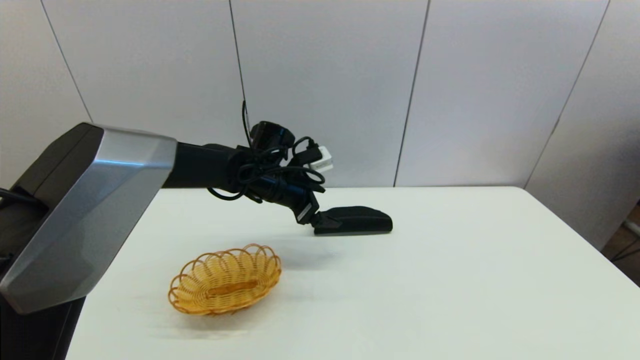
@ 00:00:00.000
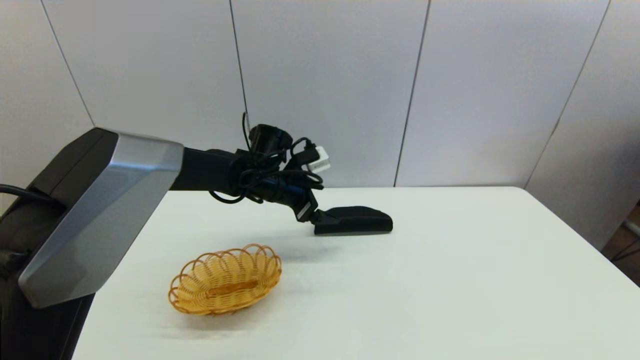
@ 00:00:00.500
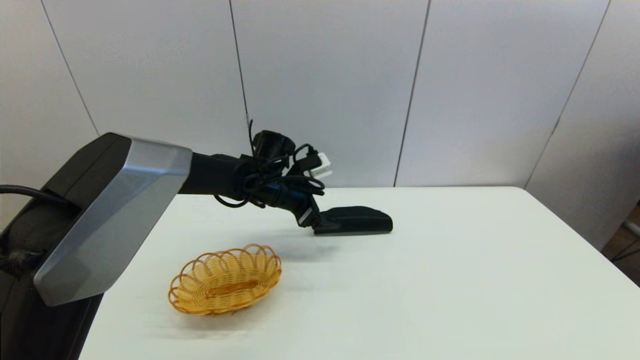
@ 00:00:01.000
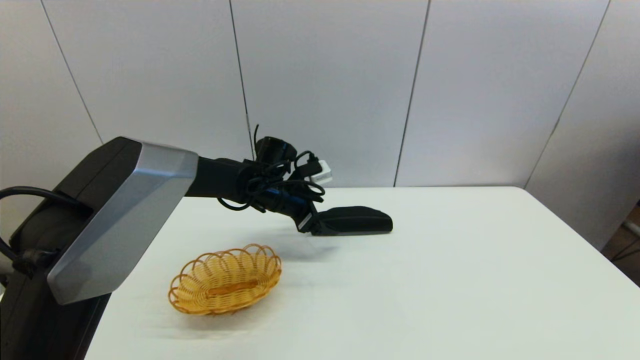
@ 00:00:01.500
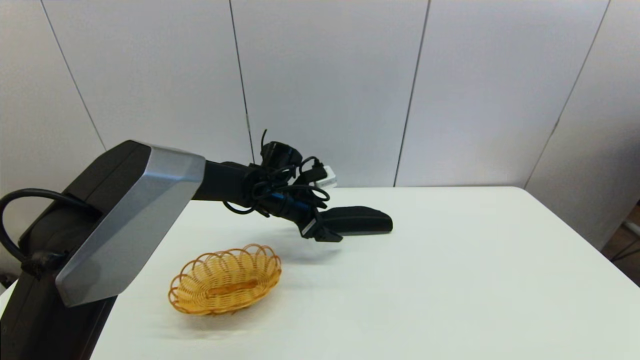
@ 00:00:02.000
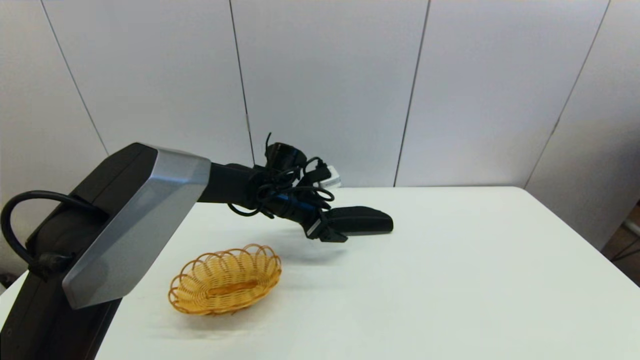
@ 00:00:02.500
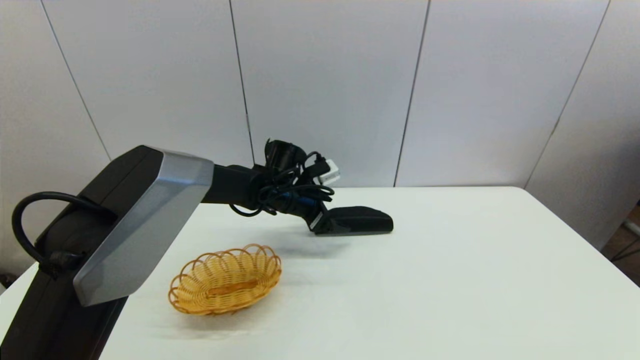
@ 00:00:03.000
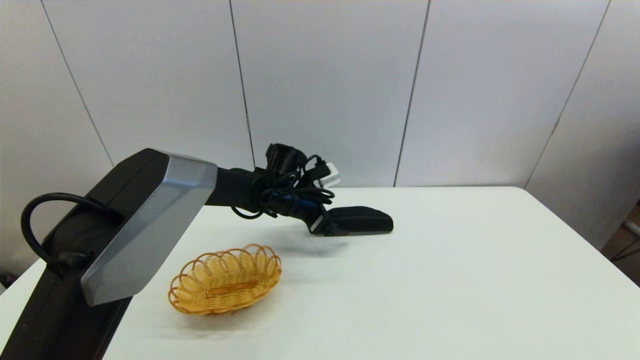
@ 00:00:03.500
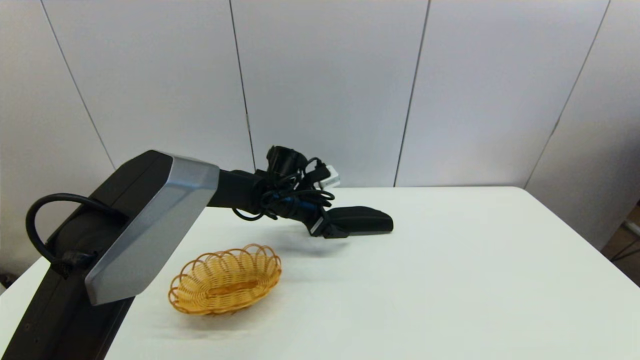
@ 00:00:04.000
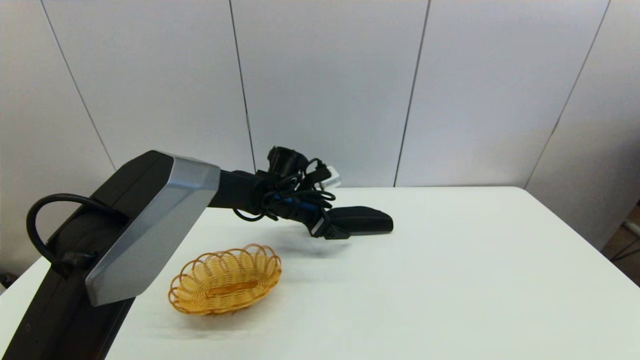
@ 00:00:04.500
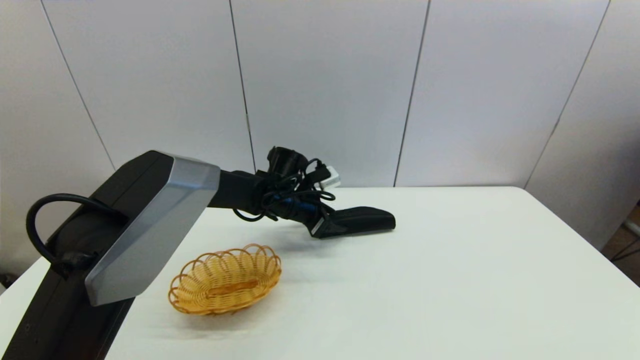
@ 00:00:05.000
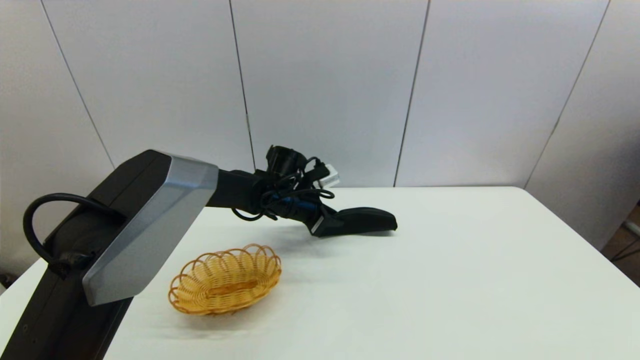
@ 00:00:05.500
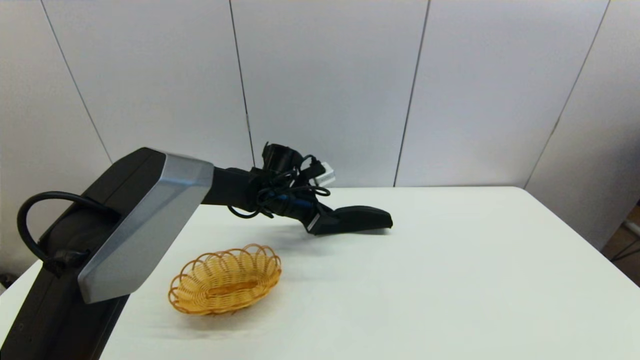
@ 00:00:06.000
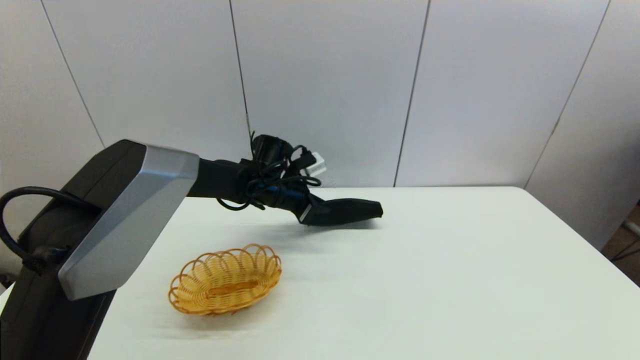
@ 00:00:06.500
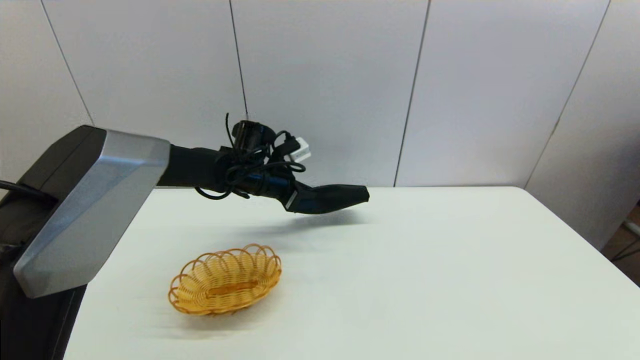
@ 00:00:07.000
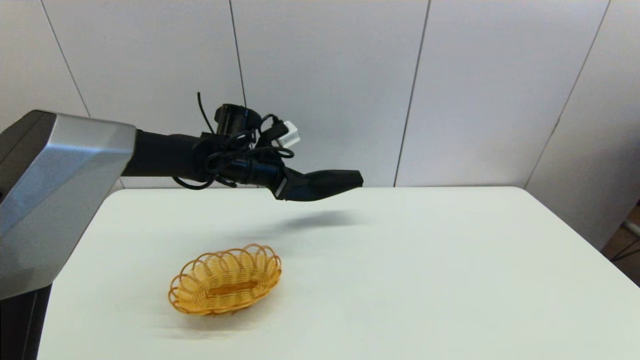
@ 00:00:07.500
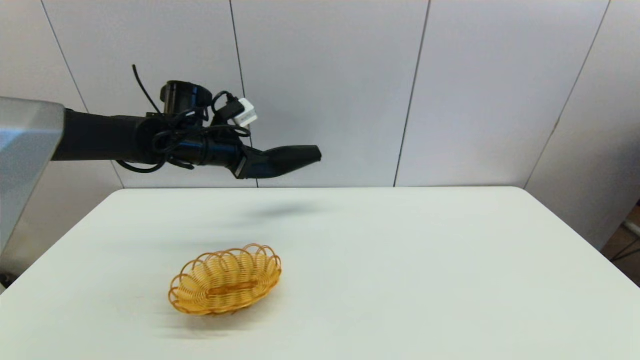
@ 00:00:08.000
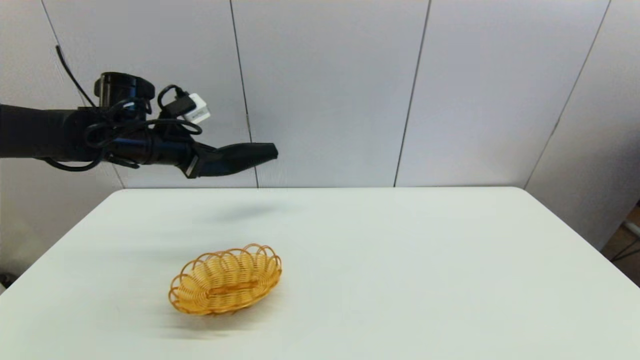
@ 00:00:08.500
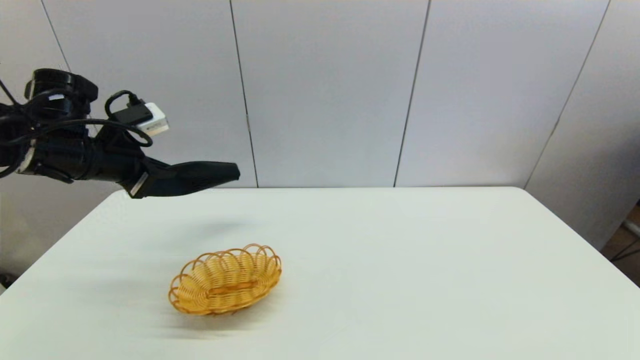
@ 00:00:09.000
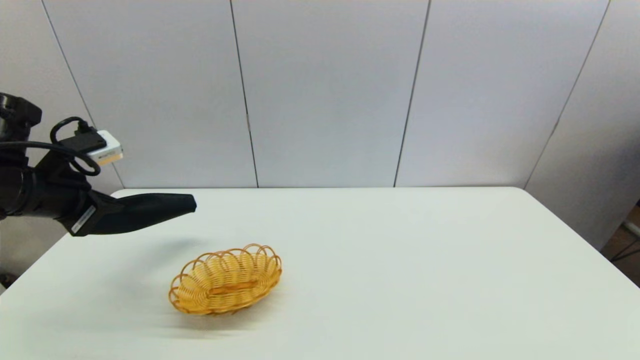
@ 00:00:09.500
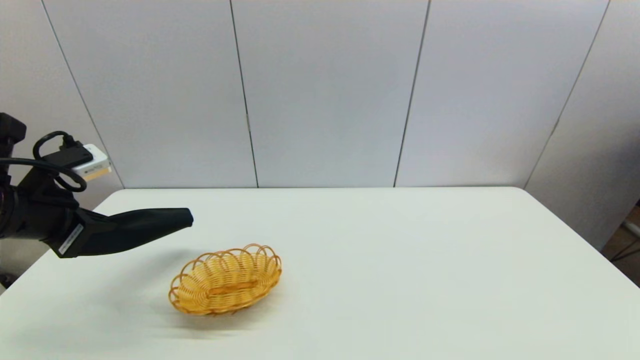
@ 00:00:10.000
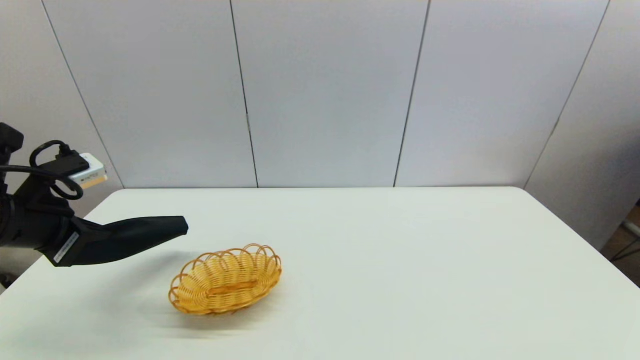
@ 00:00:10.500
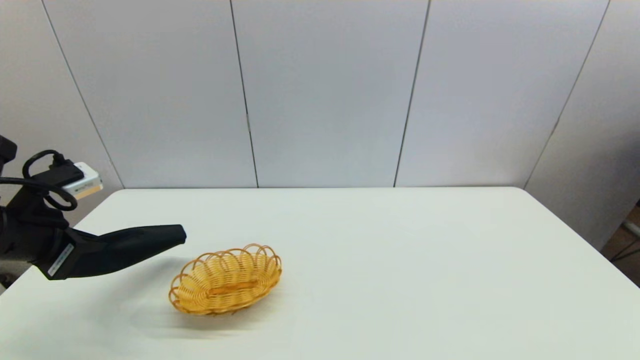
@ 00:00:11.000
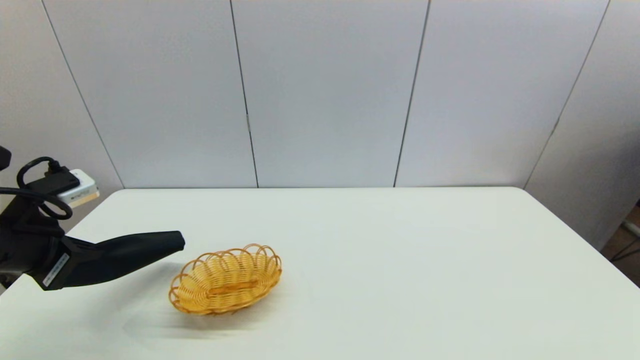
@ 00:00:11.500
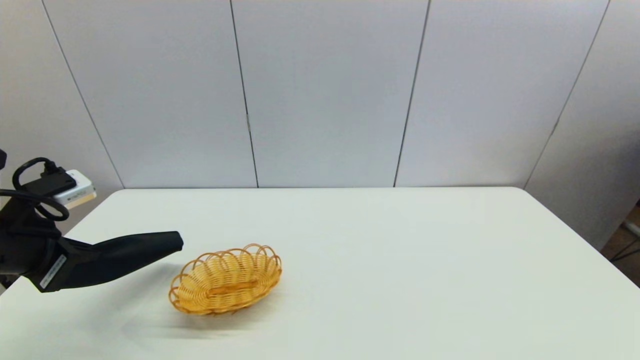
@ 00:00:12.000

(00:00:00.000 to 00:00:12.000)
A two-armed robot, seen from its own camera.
Step, 00:00:00.000 - 00:00:05.000: Grasp the glasses case with left gripper.
00:00:00.000 - 00:00:02.000: The grippers stay close to where they were, moving slightly.
00:00:02.000 - 00:00:04.000: The grippers stay close to where they were, moving slightly.
00:00:04.000 - 00:00:06.000: The left gripper closes its fingers.
00:00:06.000 - 00:00:08.000: The left gripper moves to the left and upward, about 15 cm.
00:00:08.000 - 00:00:10.000: The left gripper is displaced backward and to the left by approximately 25 cm.
00:00:10.000 - 00:00:12.000: There are only small adjustments of the grippers.

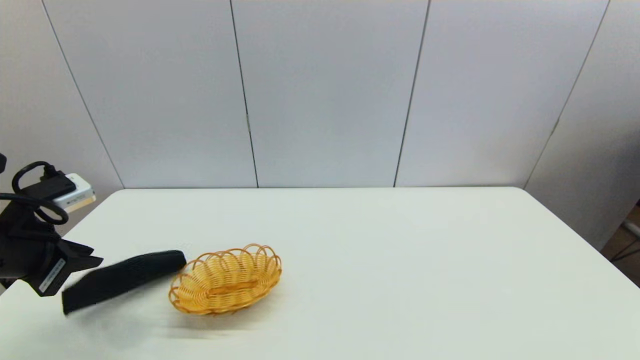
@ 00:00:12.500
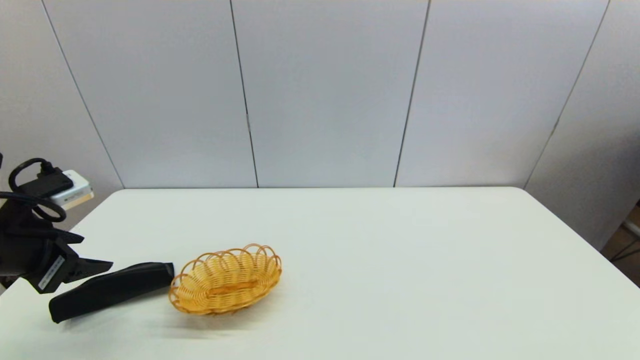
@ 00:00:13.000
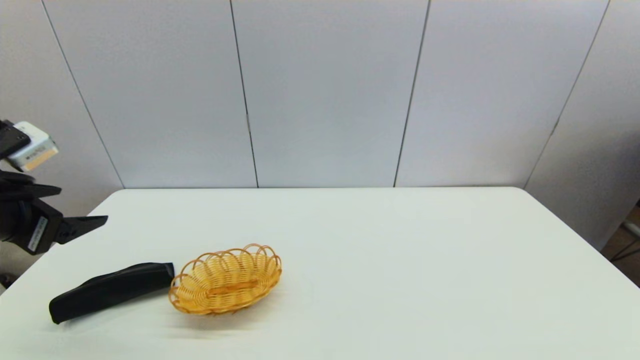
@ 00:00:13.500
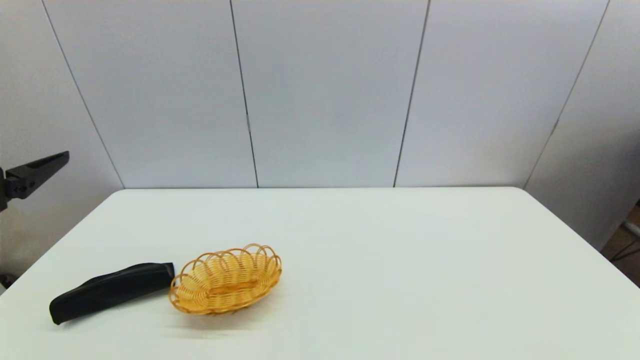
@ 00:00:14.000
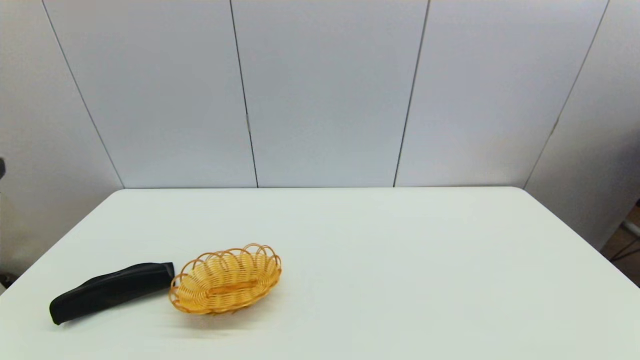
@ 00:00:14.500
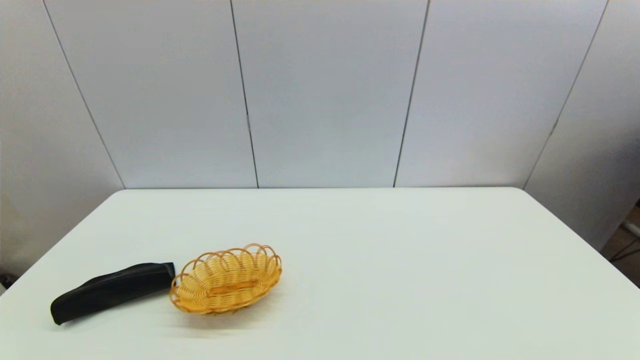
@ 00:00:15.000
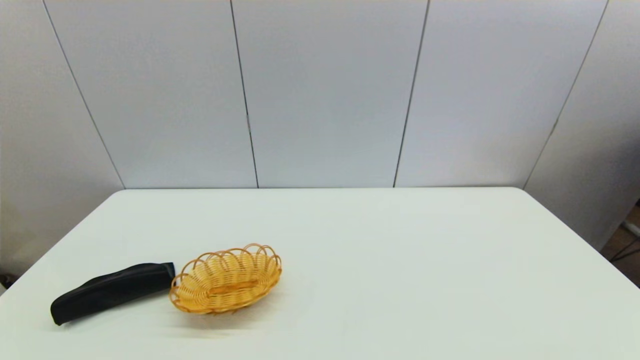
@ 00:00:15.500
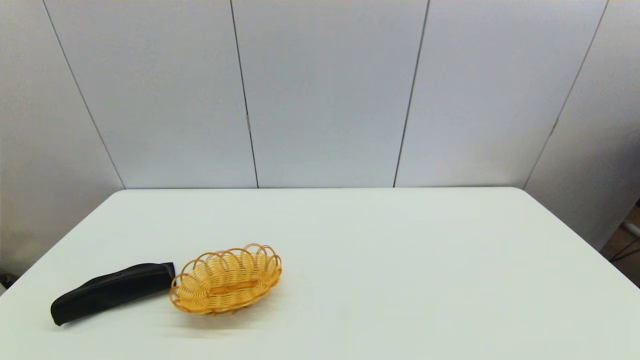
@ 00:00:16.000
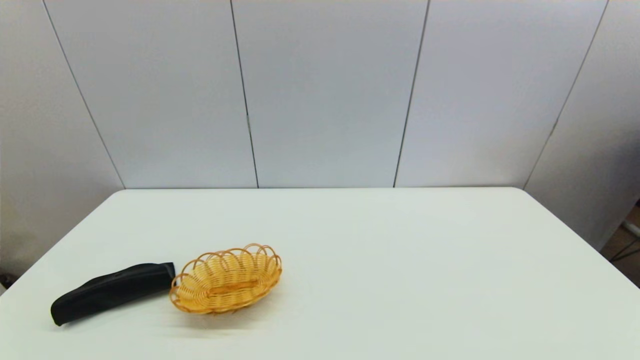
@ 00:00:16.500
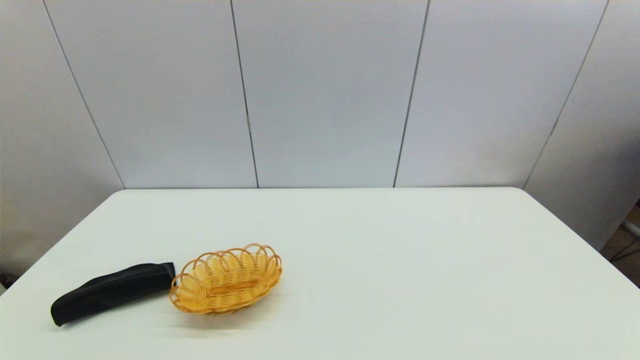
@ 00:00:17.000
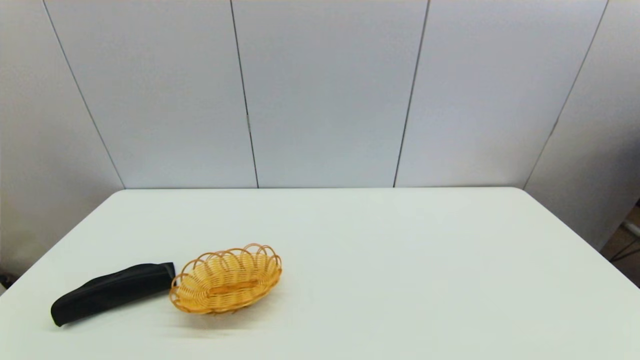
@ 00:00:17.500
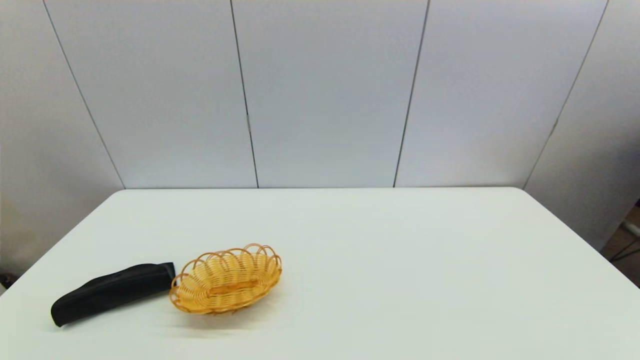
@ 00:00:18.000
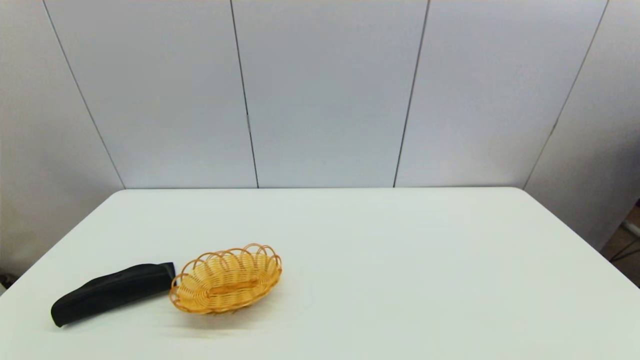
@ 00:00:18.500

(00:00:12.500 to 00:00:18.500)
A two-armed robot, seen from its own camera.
00:00:12.500 - 00:00:14.500: The left gripper heads backward and upward, covering roughly 15 cm, and opens up.
